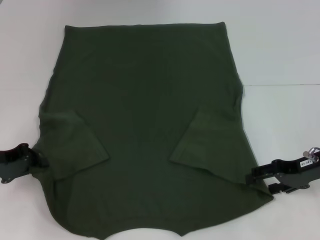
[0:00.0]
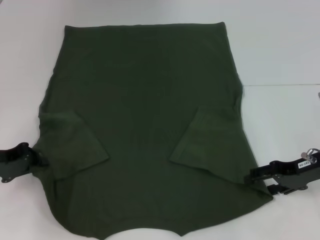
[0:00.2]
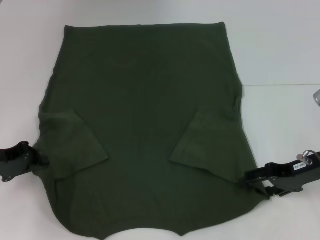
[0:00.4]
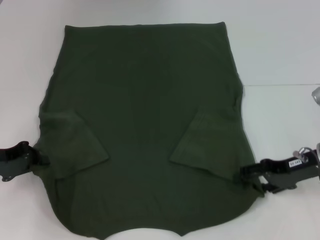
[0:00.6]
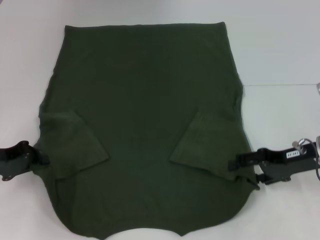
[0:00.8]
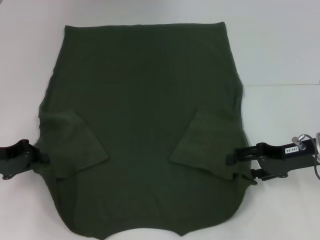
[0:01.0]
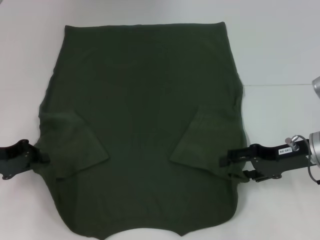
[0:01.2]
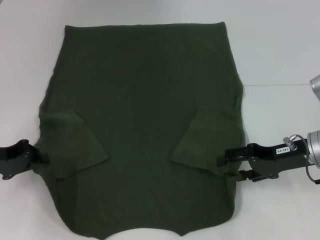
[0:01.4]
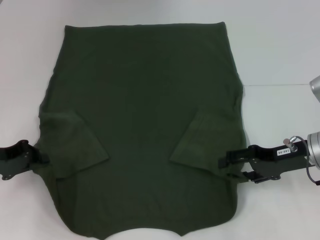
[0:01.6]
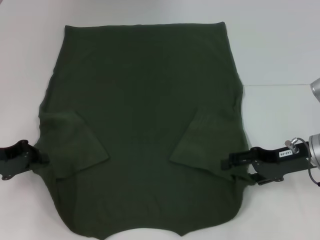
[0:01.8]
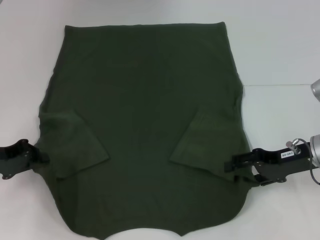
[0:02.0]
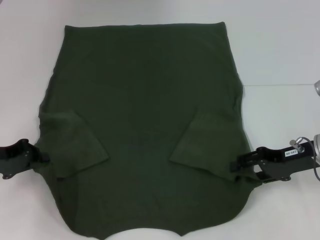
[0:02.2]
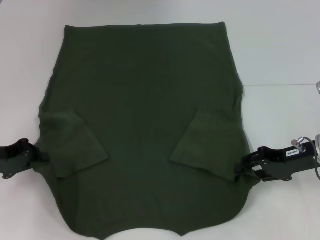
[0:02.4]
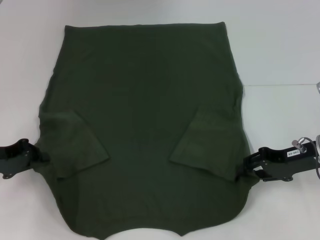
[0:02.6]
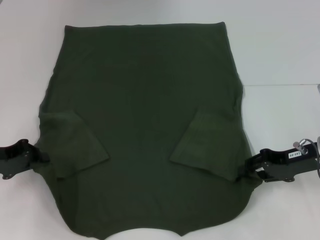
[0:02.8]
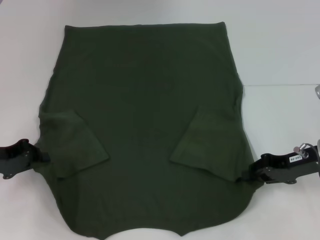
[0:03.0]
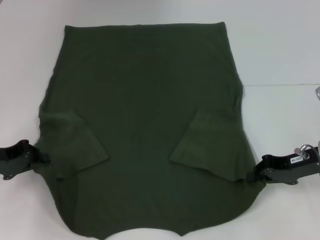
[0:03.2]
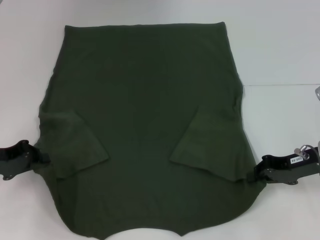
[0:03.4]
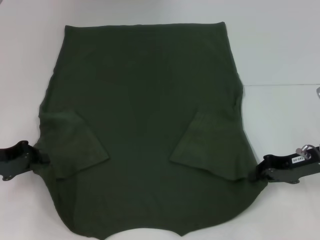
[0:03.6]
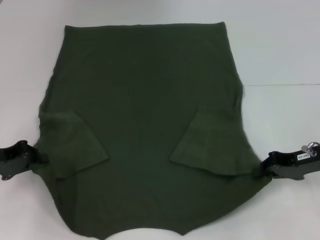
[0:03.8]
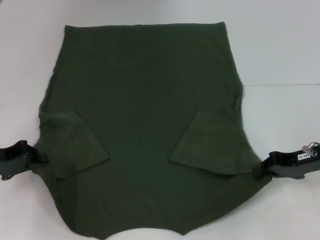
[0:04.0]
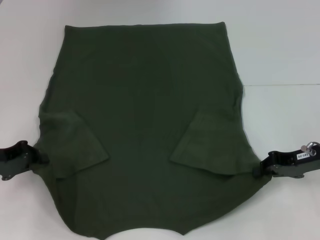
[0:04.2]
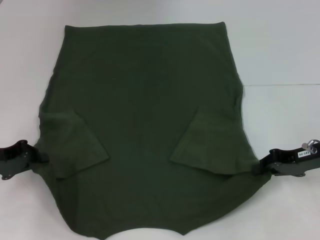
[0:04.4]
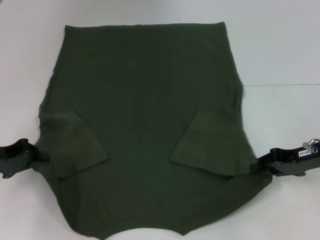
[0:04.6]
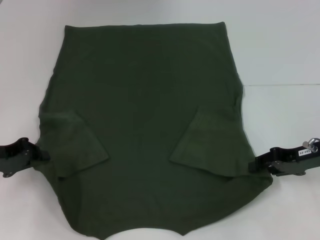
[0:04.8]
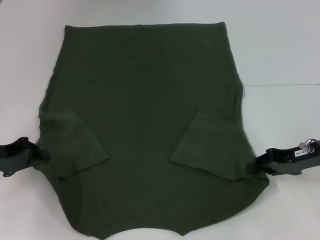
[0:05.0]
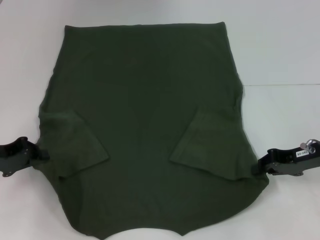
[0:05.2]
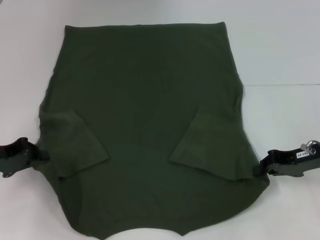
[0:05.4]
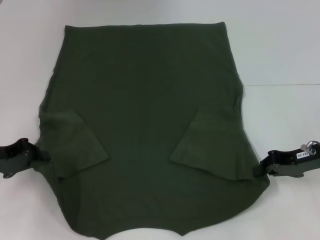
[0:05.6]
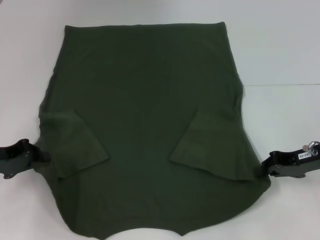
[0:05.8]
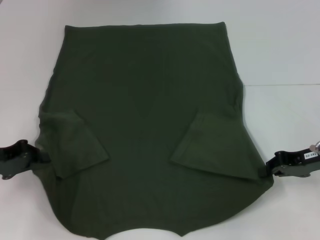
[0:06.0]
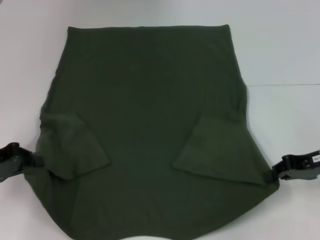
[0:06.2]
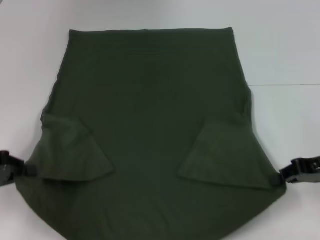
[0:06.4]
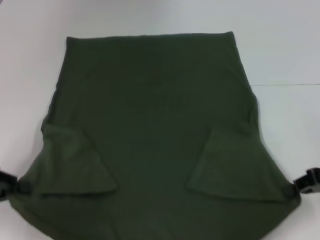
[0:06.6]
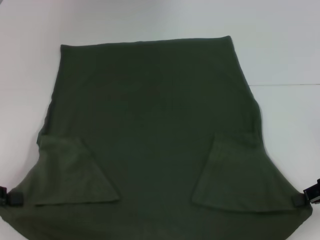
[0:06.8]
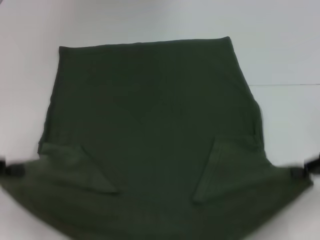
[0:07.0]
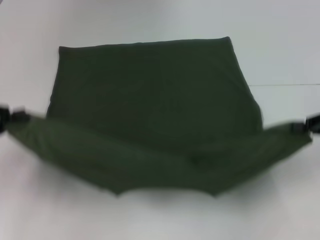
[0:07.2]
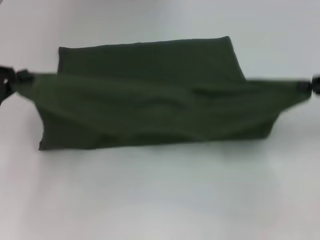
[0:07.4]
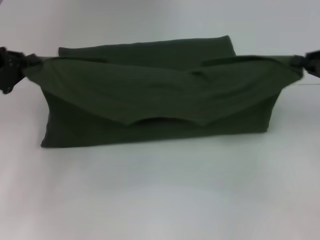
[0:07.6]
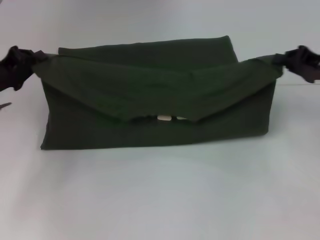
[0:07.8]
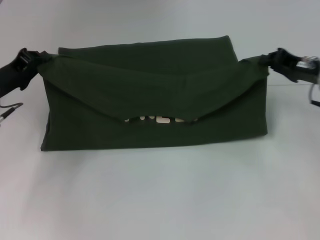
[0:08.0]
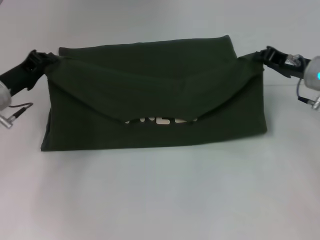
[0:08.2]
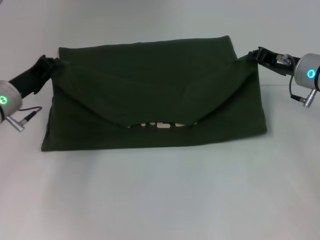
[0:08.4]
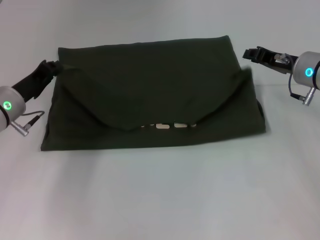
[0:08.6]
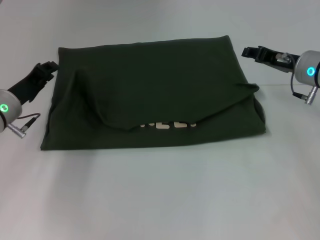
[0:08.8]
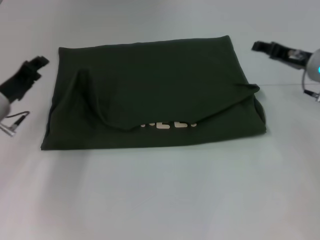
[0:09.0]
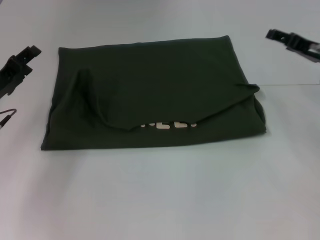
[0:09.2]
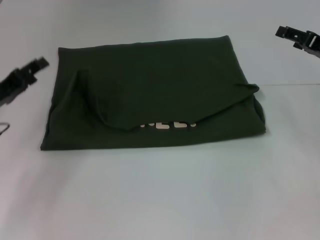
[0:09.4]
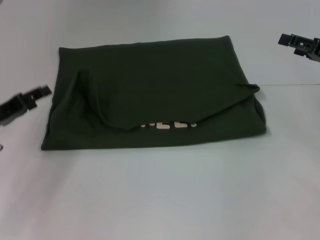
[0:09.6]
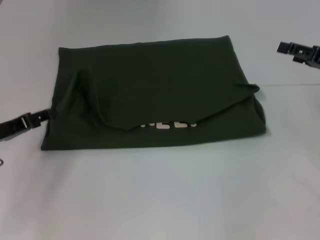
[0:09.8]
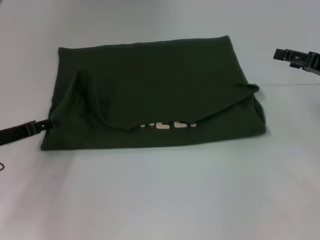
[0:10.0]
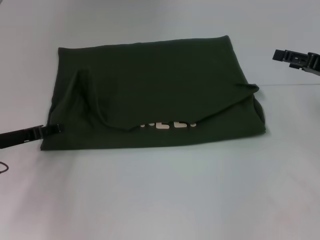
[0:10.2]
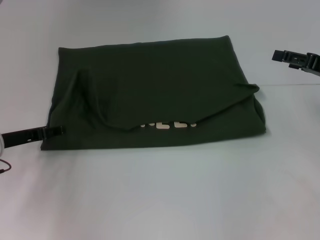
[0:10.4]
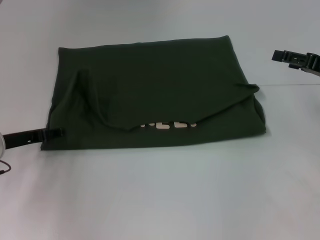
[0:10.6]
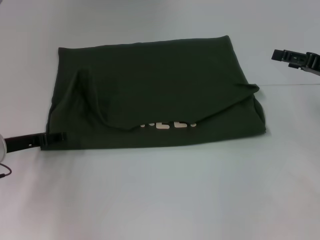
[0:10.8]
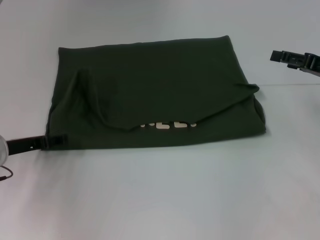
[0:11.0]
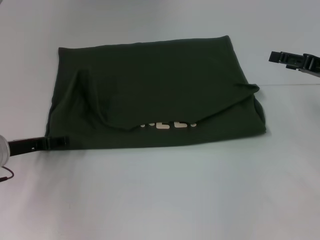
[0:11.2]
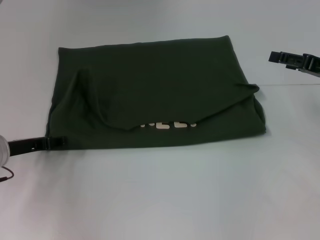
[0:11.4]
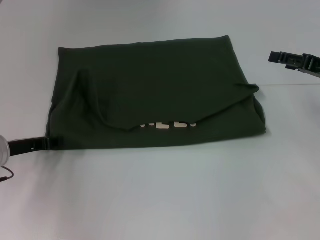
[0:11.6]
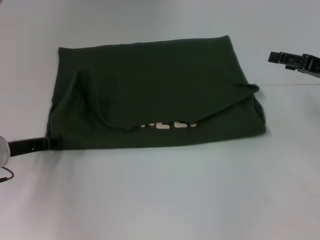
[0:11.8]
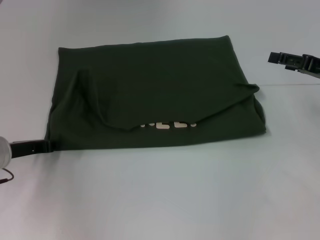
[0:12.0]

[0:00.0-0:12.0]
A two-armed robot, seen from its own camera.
Step, 0.0 to 3.4 s: Grab the bottom right corner with your right hand.
Step, 3.6 to 8.4 s: Fold the clothes with your left hand.
Step, 3.6 to 8.4 s: Fold the clothes with your right hand.
0.0 to 1.6 s: There are only small adjustments of the grippers.
1.6 to 3.0 s: The right gripper closes.
3.0 to 4.4 s: The two grippers keep their place.
4.4 to 6.0 s: Neither gripper changes place.
6.0 to 7.6 s: The left gripper heads upward, covering roughly 5 cm. Meanwhile the right gripper shifts approximately 10 cm upward and to the right.
7.6 to 9.0 s: The left gripper heads downward and to the right, covering approximately 10 cm. Meanwhile the right gripper shifts about 10 cm to the left and forward, and opens.
9.0 to 10.4 s: The right gripper shifts roughly 10 cm to the right and backward, and opens. The left gripper opens its fingers.
10.4 to 12.0 s: The left gripper closes its fingers.

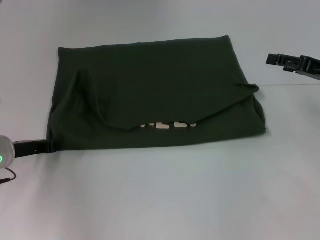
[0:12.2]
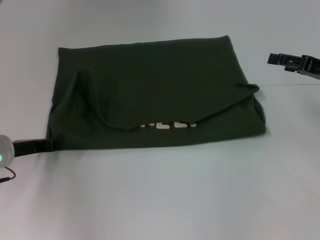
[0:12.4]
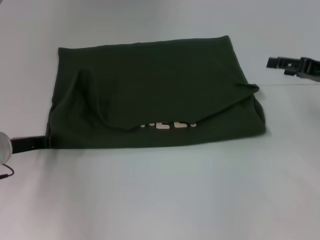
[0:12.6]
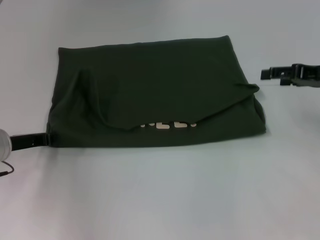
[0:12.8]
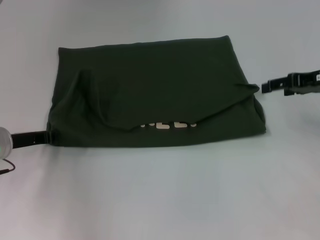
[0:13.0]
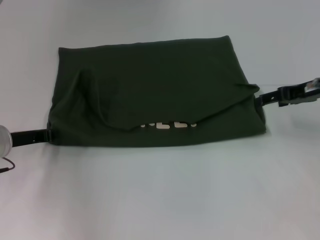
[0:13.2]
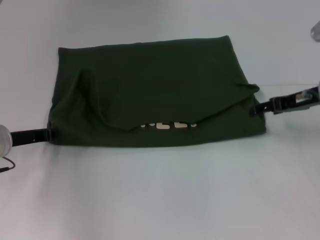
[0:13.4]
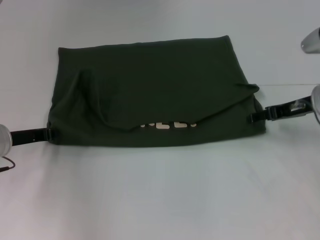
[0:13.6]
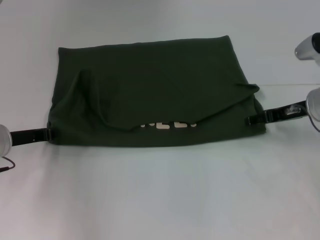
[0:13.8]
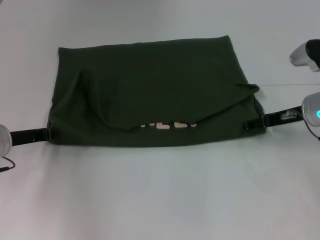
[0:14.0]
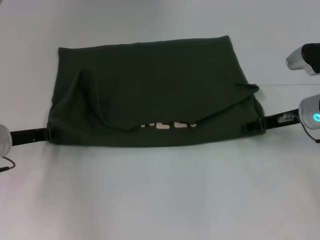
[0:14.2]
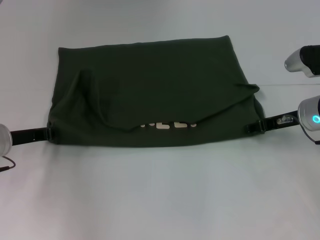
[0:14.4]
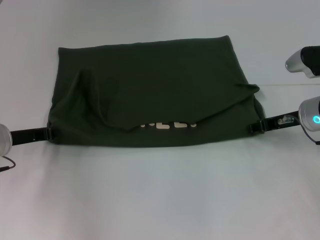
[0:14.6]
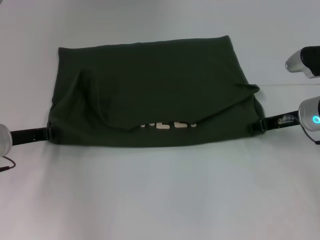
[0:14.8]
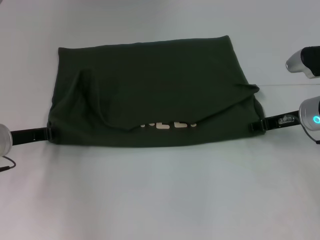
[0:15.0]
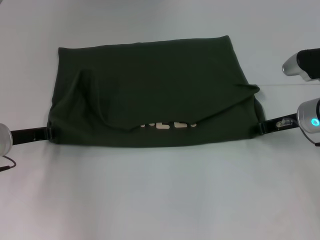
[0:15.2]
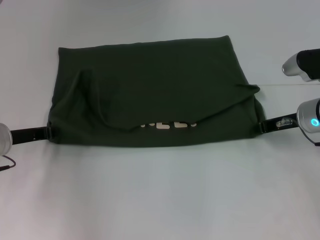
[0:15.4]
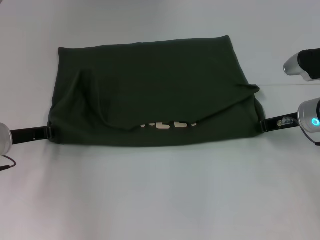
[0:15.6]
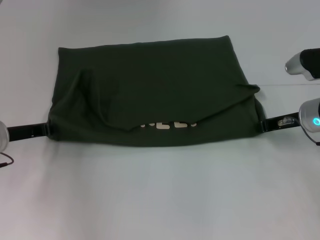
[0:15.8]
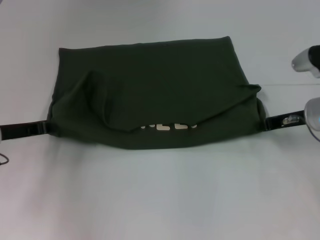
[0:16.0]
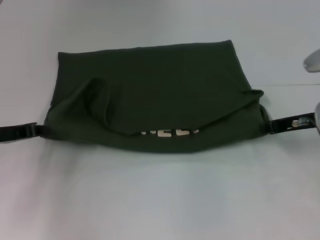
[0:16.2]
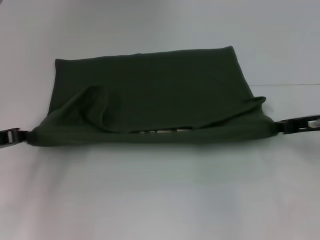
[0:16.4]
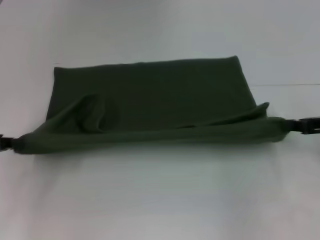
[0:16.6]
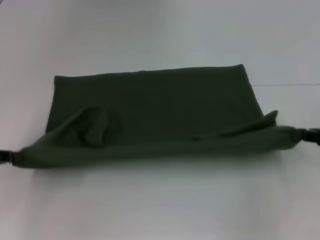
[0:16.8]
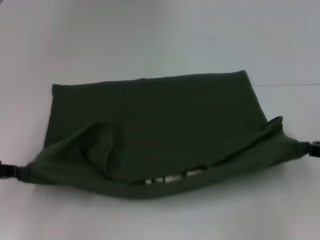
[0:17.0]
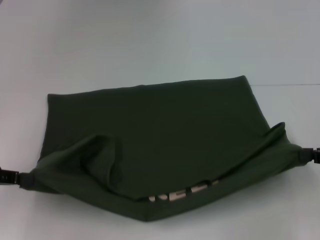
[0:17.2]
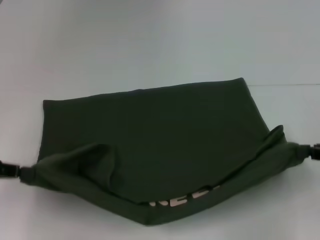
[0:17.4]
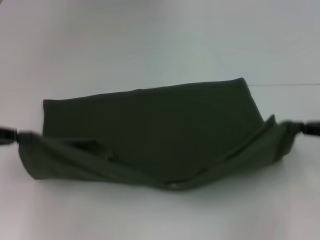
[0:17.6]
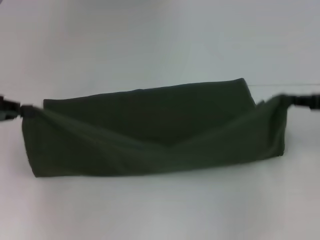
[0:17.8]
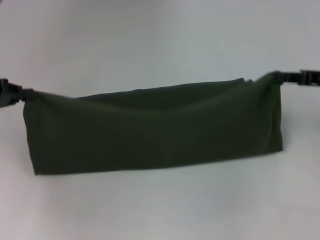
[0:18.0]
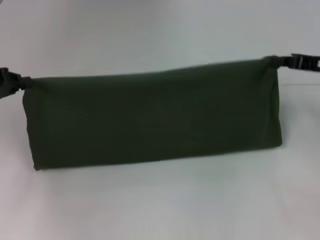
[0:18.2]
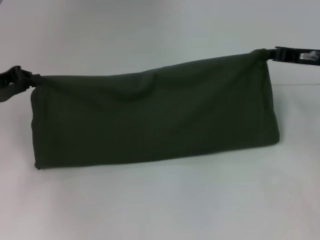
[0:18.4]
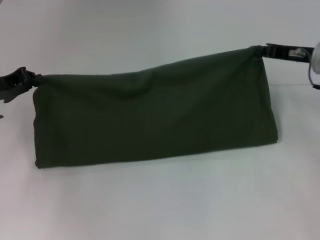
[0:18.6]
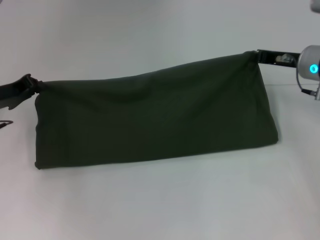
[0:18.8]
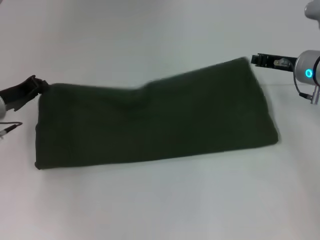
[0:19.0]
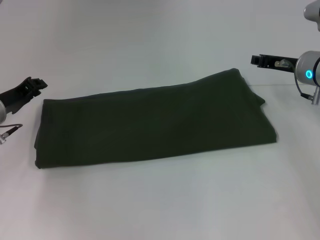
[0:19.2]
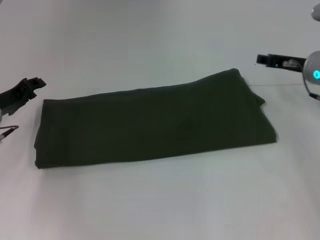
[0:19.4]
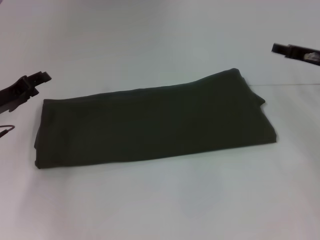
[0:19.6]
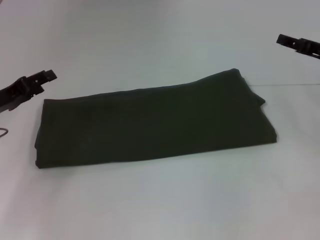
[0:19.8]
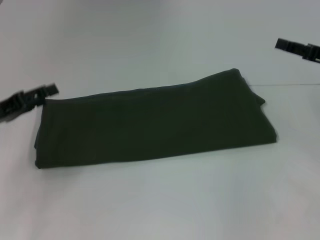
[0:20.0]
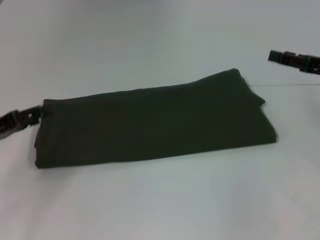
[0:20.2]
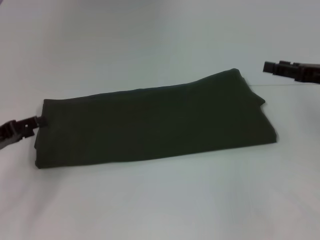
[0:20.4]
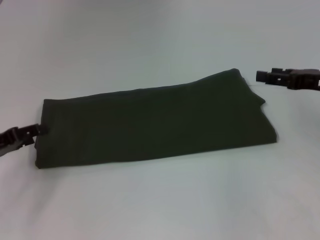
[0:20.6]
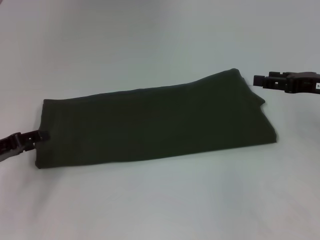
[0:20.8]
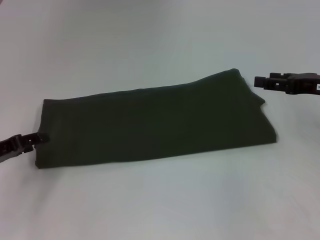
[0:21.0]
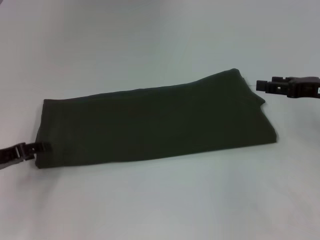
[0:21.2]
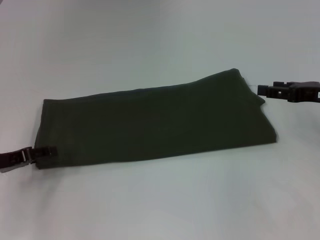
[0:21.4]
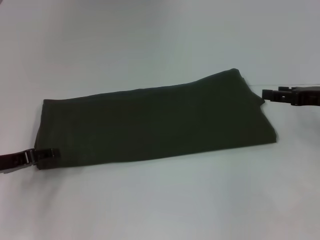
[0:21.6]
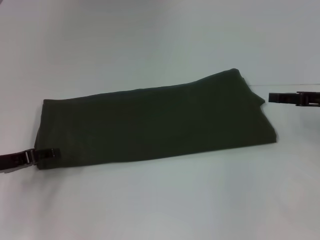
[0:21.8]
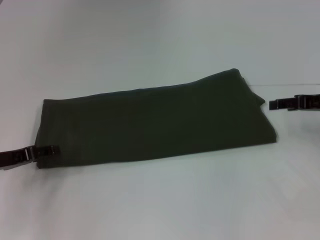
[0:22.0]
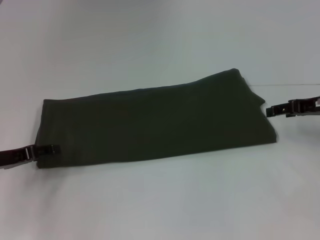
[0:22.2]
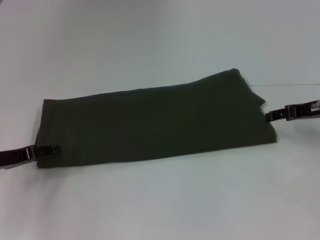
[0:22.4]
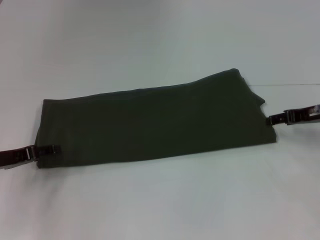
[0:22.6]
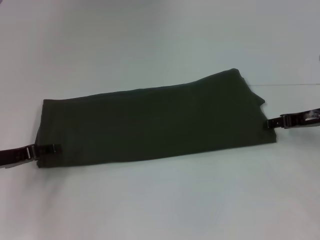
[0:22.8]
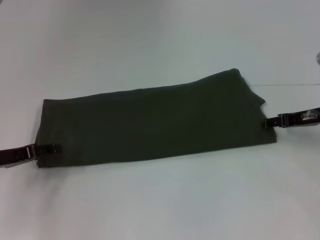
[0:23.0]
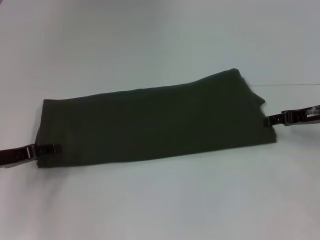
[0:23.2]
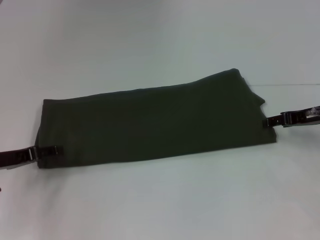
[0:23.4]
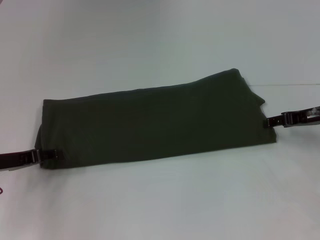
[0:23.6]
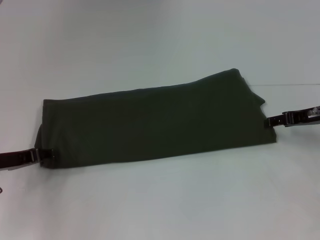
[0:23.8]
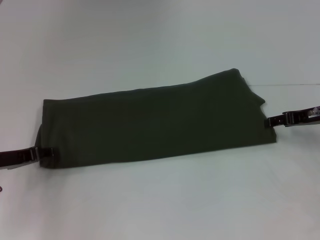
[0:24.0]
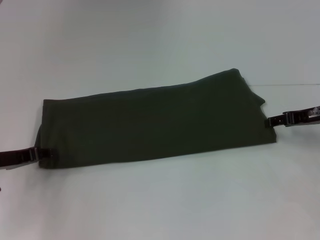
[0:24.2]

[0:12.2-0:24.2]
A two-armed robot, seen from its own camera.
Step, 12.2 to 17.0 s: Pull the clothes with your left hand.
Step, 12.2 to 17.0 s: Pull the clothes with your right hand.
Step, 17.2 to 19.0 s: Fold the clothes with your right hand.
12.2 to 13.8 s: The right gripper travels to the left by approximately 5 cm.
13.8 to 15.2 s: The right gripper closes its fingers.
15.2 to 16.6 s: The right gripper moves backward and to the right, approximately 10 cm. Meanwhile the left gripper is displaced to the left and backward by some 10 cm.
16.6 to 18.2 s: The two grippers go some 5 cm forward.
18.2 to 19.8 s: The right gripper opens up. Meanwhile the left gripper moves downward, some 5 cm, and opens up.
19.8 to 21.2 s: The left gripper changes place by approximately 5 cm.
22.6 to 24.2 s: The grippers make only small movements.
